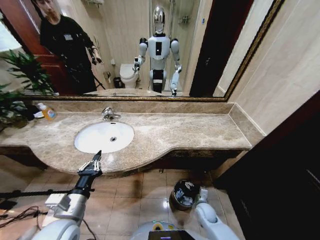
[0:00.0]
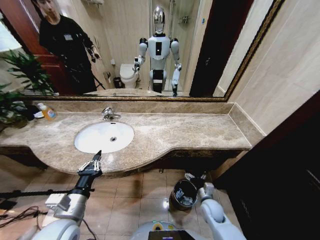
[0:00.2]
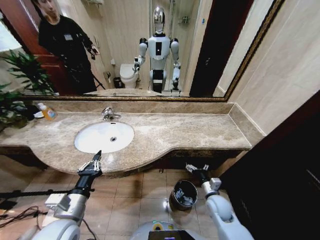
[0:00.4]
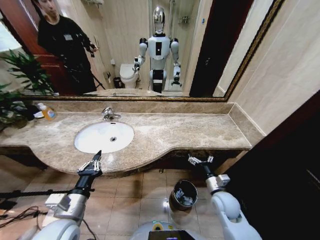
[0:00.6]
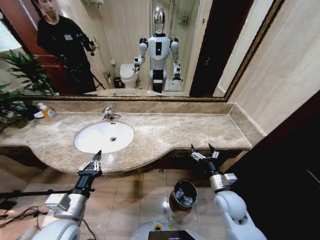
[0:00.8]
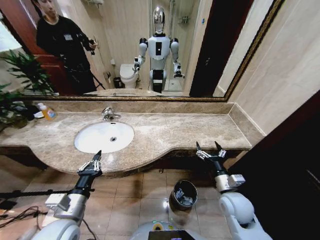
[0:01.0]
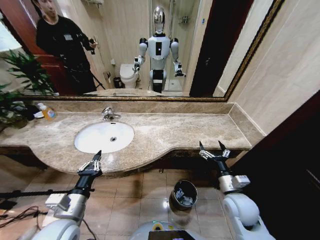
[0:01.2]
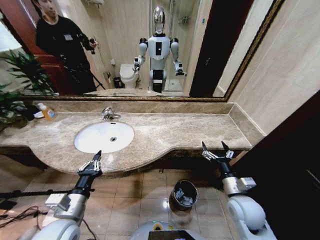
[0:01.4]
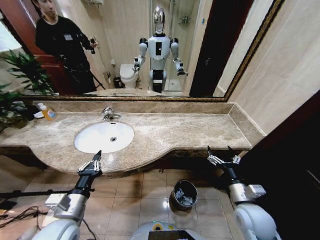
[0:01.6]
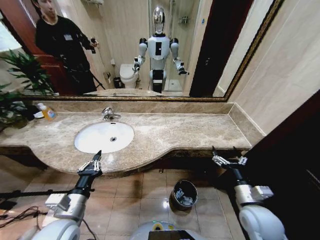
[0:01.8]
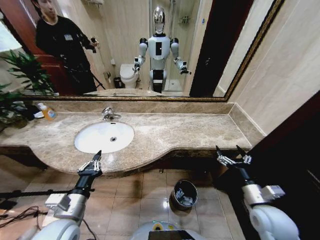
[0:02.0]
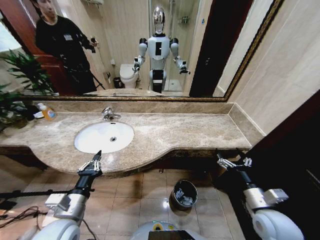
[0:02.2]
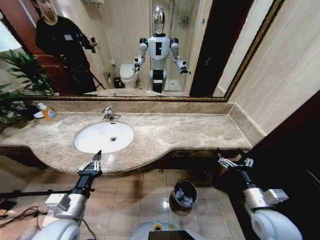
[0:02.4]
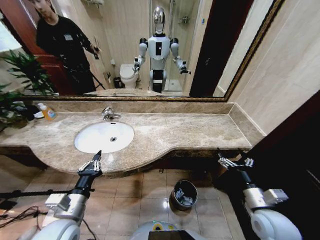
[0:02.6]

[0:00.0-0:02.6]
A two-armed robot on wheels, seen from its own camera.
Task of the whole recording: Pick up the trash from the sink and place it in the trash bin.
0:00.0 to 0:01.2: The right gripper moves upward, roughly 25 cm.
0:01.2 to 0:02.6: The right gripper heads backward and to the right, covering about 10 cm.
